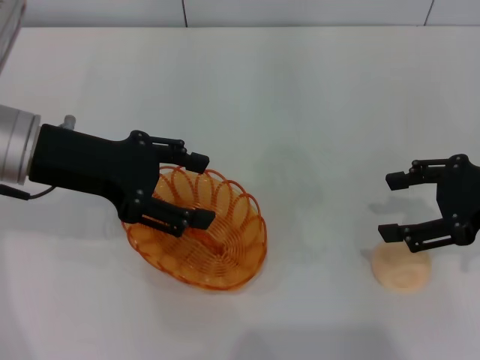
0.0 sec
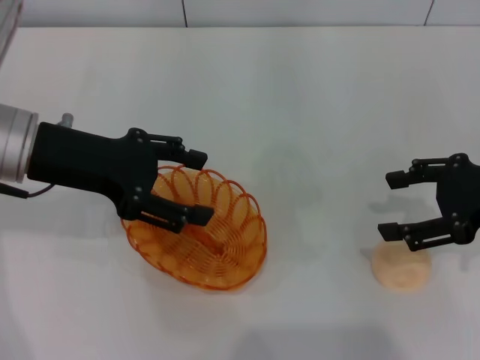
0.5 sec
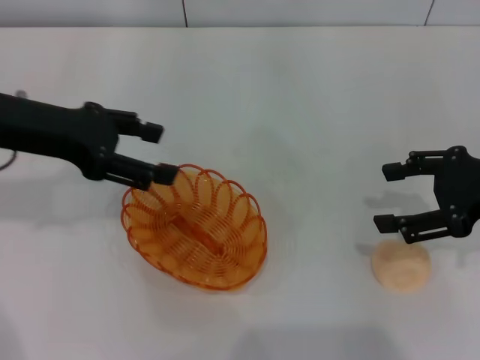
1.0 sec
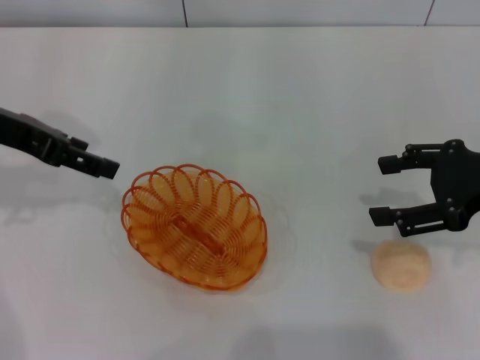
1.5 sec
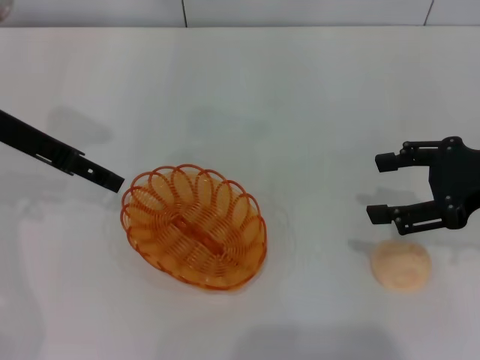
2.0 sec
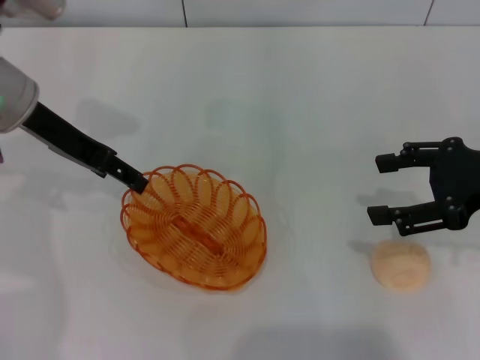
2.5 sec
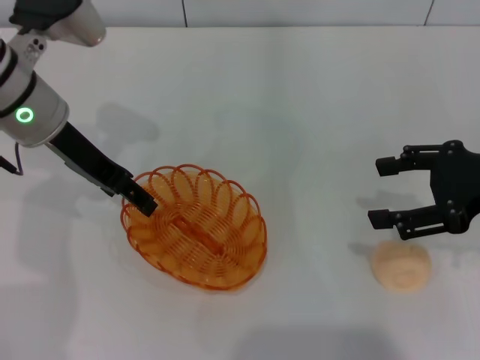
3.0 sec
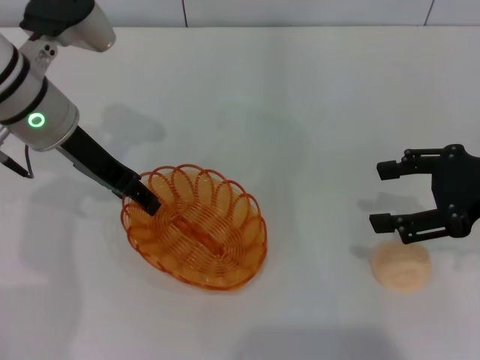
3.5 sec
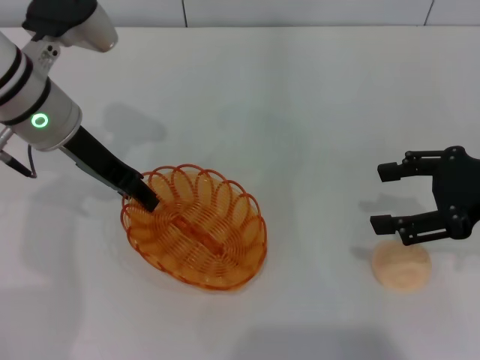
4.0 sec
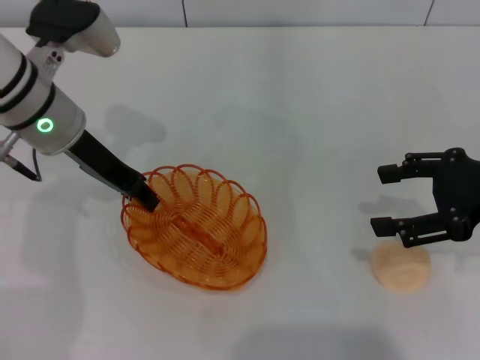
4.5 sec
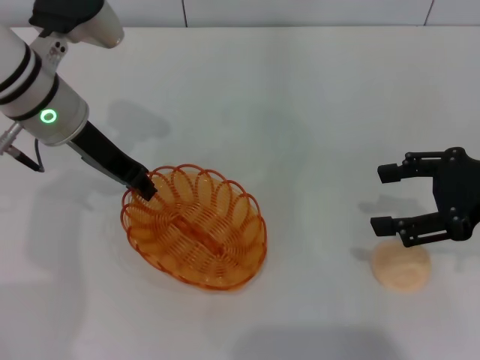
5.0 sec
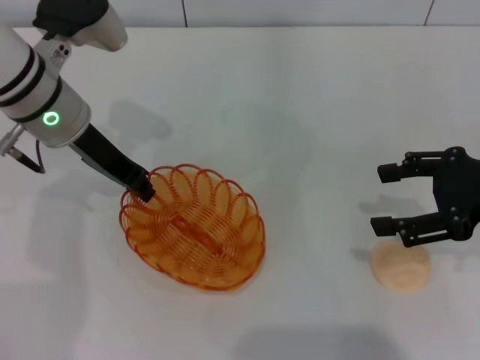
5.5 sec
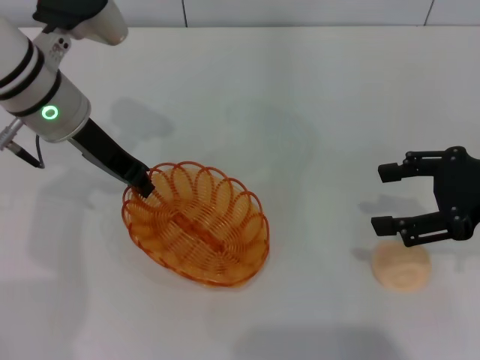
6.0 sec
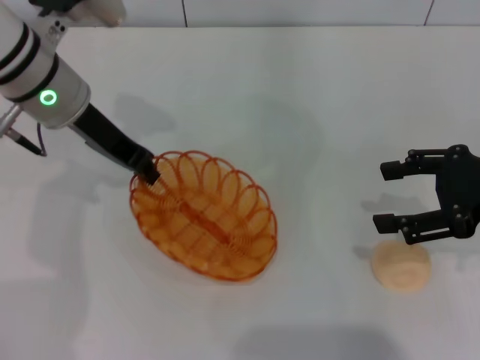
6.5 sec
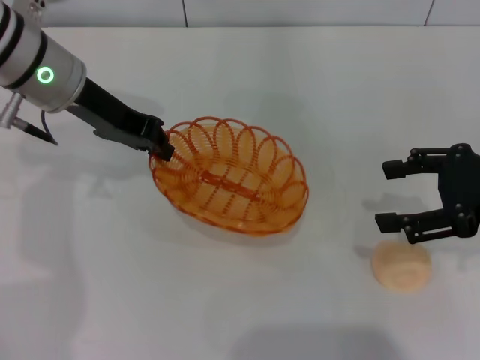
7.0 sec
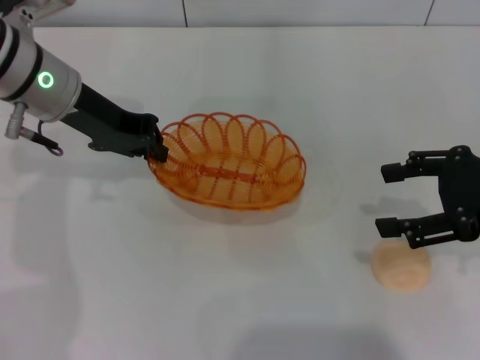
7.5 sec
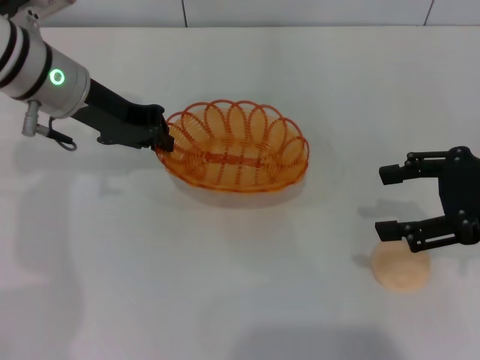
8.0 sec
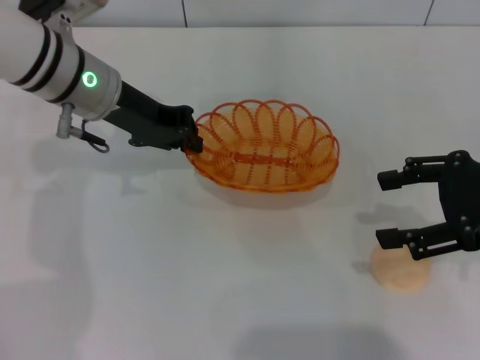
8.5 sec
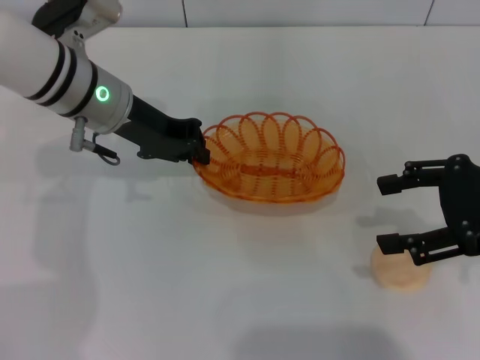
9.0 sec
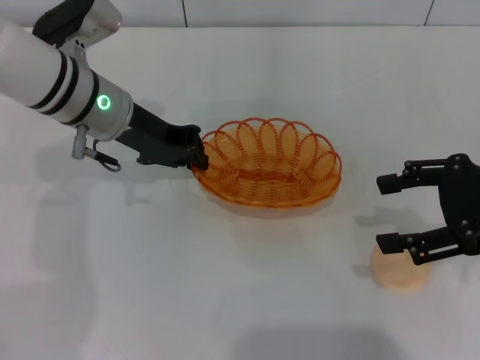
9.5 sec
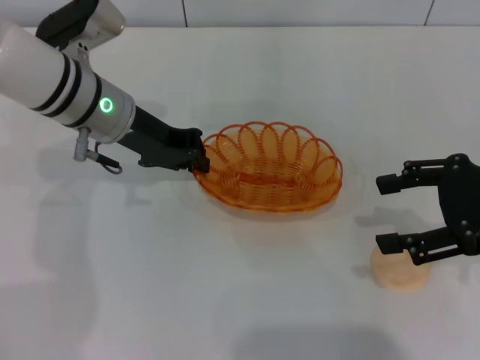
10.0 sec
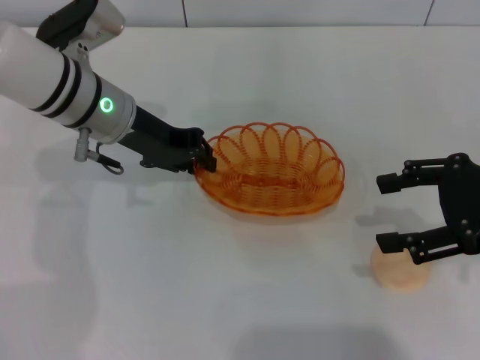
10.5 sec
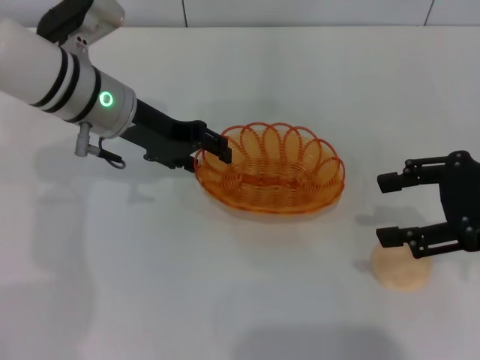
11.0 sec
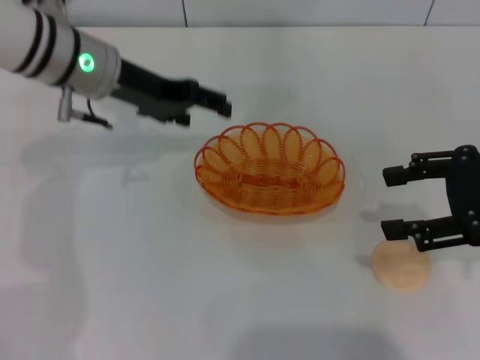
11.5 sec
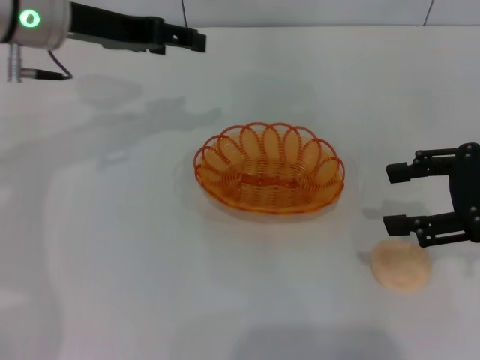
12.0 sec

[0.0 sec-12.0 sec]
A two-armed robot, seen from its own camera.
Step, 0.0 sec to 6.5 sec: Pick up the basket with the left gripper.
Step, 7.0 sec to 11.5 sec: Place the basket in the center of view with the left gripper.
0.0 sec to 2.0 sec: The left gripper ends up about 5 cm from where it was.
2.0 sec to 4.0 sec: The left gripper travels to the right by roughly 5 cm, and closes its fingers.
4.0 sec to 6.0 sec: The left gripper closes.
8.0 sec to 10.0 sec: The grippers make only small movements.
10.0 sec to 12.0 sec: The left gripper moves upward, some 10 cm, and opens its fingers.

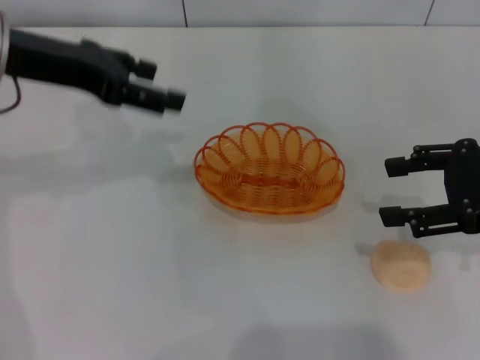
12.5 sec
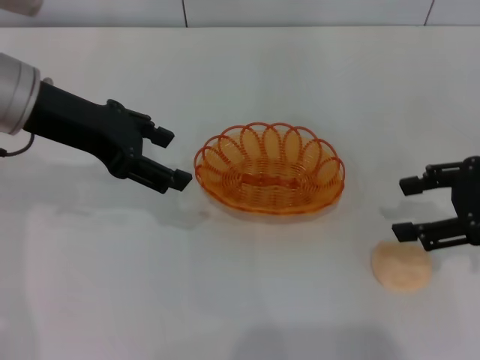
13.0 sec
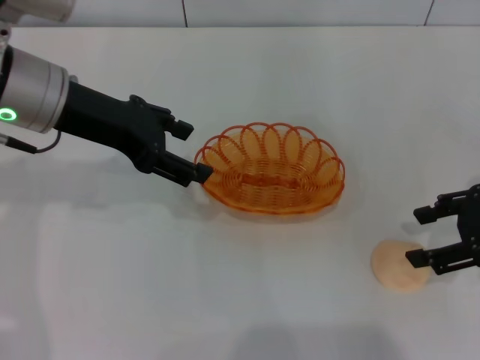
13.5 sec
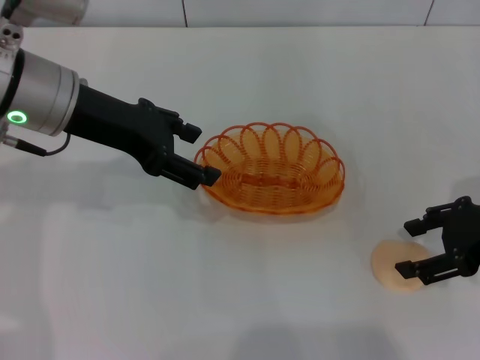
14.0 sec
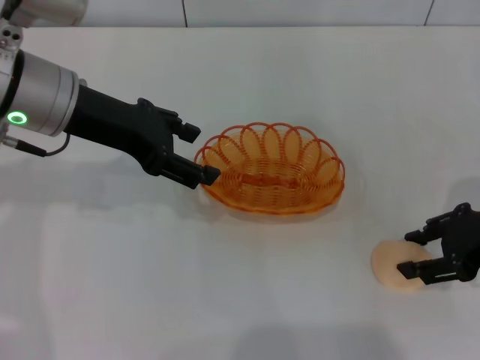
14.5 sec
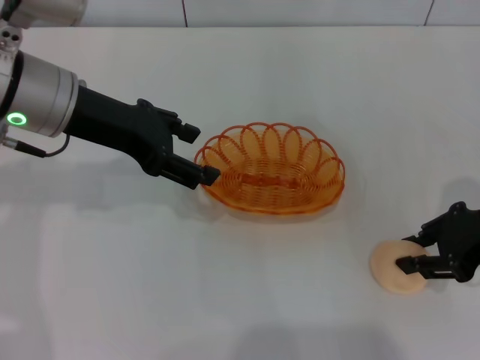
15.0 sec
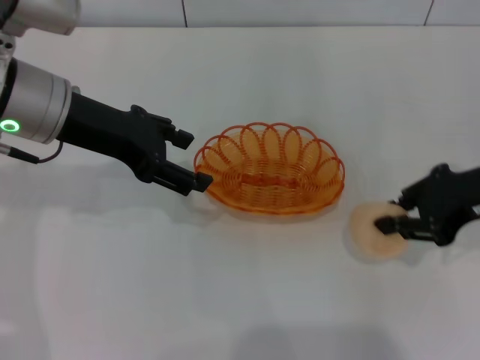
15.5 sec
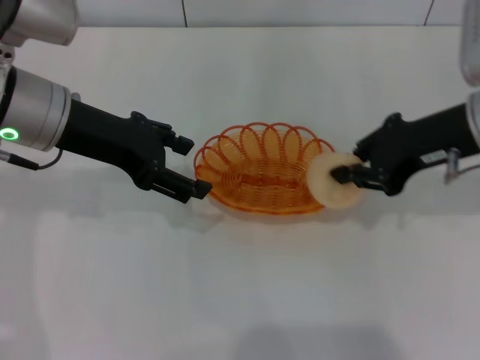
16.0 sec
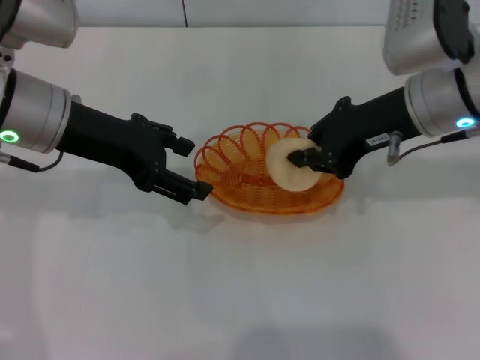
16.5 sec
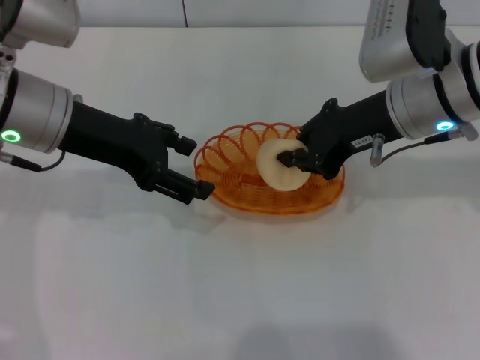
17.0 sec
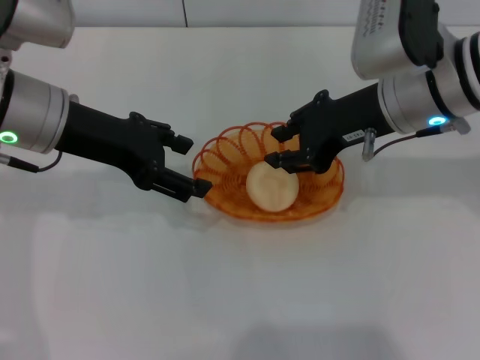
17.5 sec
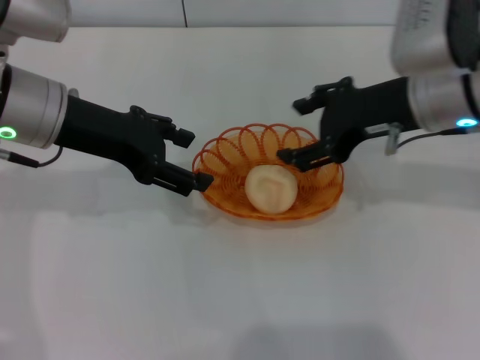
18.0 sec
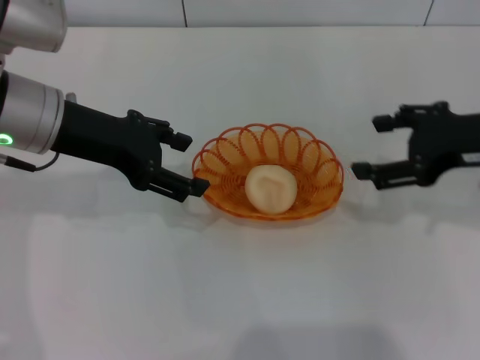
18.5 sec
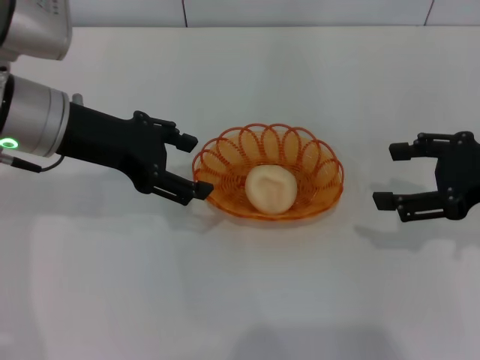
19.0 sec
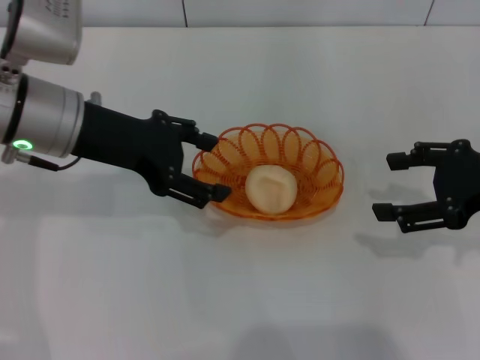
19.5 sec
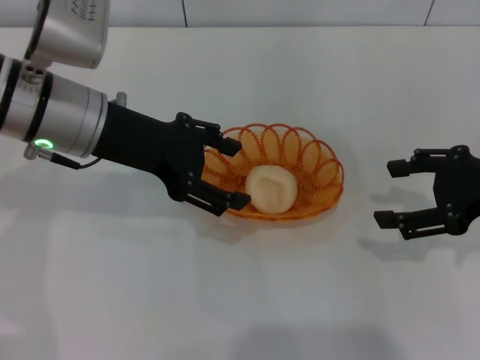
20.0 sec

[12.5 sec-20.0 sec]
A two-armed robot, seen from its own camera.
Step, 12.5 sec to 15.5 sec: Pick up the egg yolk pastry with the right gripper.
Step, 16.0 sec to 17.5 sec: Place the egg yolk pastry into the basket with the right gripper.
12.5 sec to 14.5 sec: The right gripper is displaced downward by some 5 cm. Meanwhile the left gripper changes place by some 5 cm.
14.5 sec to 16.5 sec: The right gripper is displaced to the left, upward and forward by some 15 cm, and closes its fingers.
16.5 sec to 18.0 sec: The right gripper opens.
18.0 sec to 20.0 sec: The right gripper moves to the right and backward, some 15 cm.

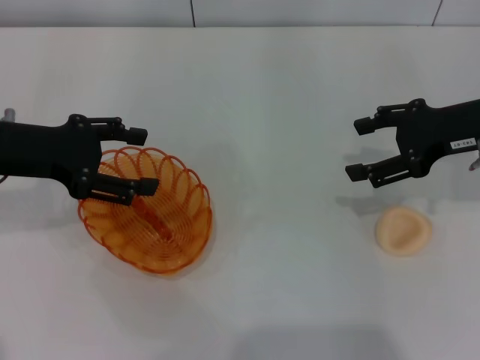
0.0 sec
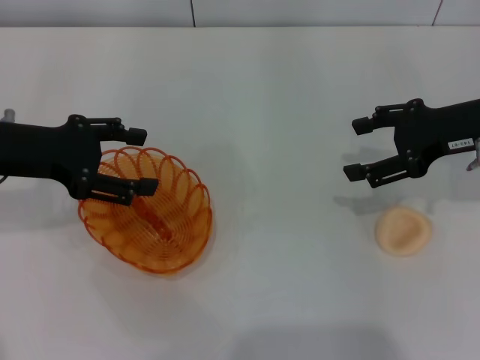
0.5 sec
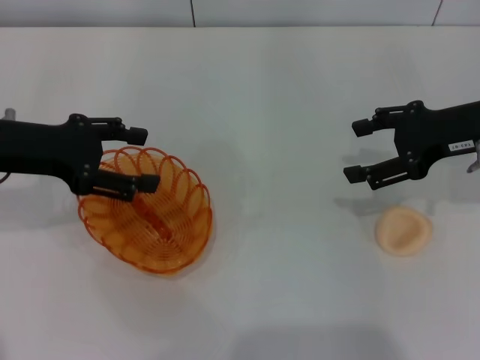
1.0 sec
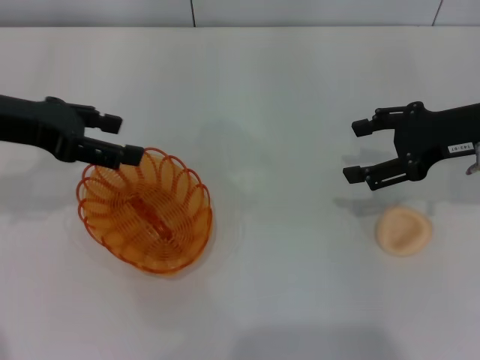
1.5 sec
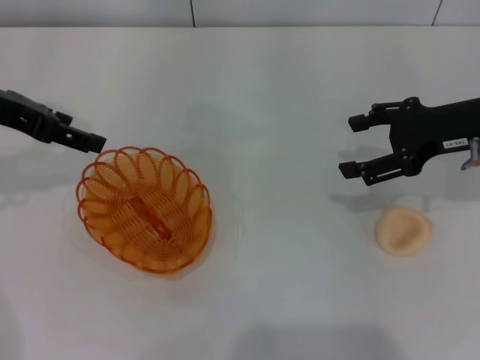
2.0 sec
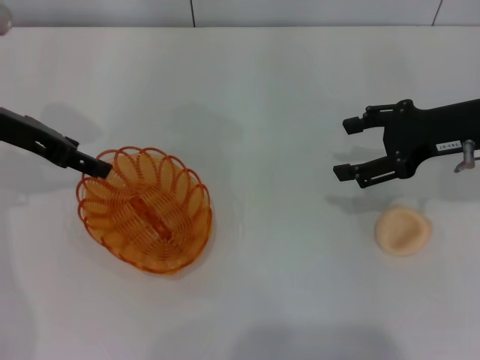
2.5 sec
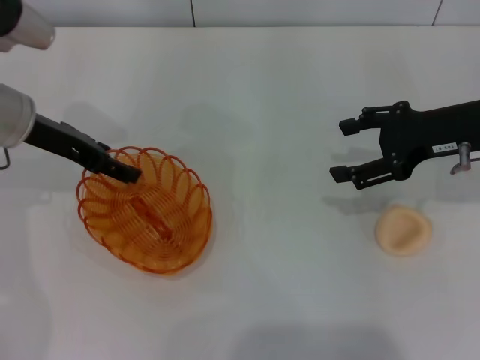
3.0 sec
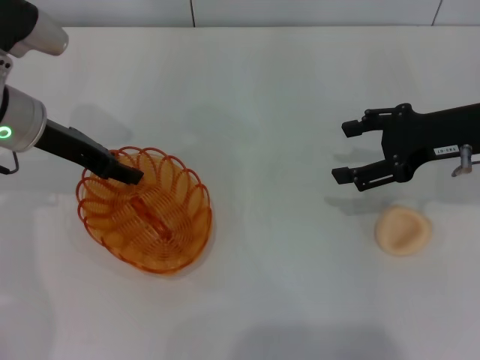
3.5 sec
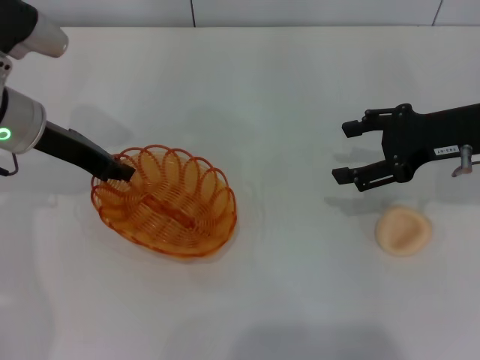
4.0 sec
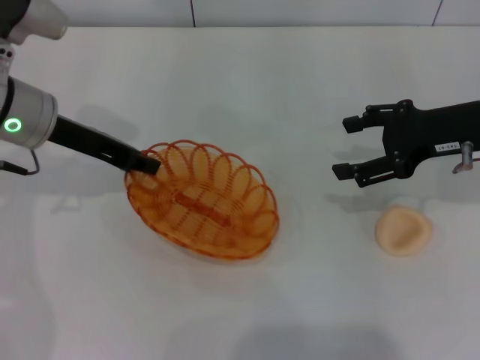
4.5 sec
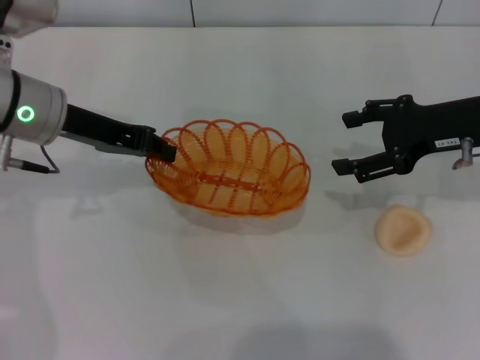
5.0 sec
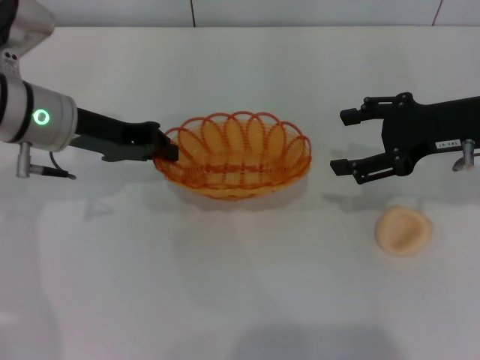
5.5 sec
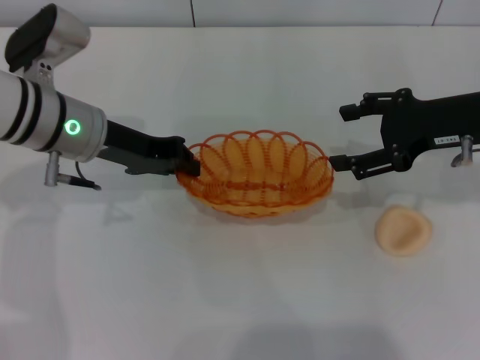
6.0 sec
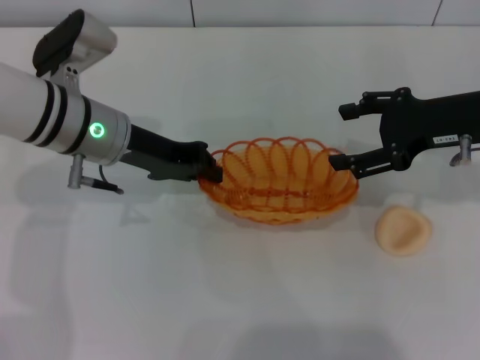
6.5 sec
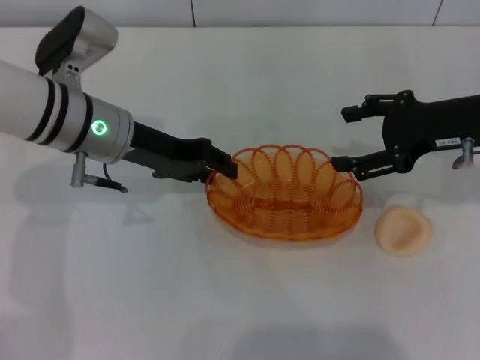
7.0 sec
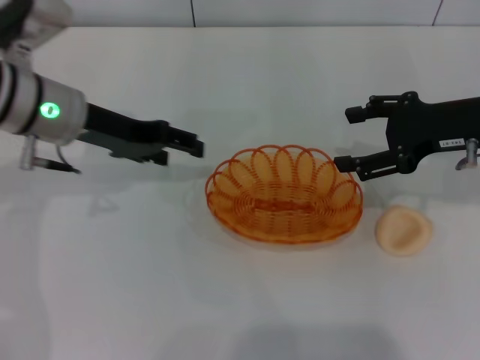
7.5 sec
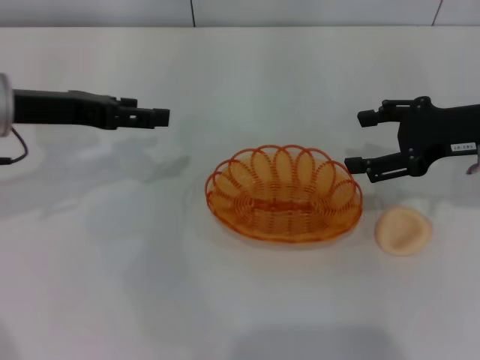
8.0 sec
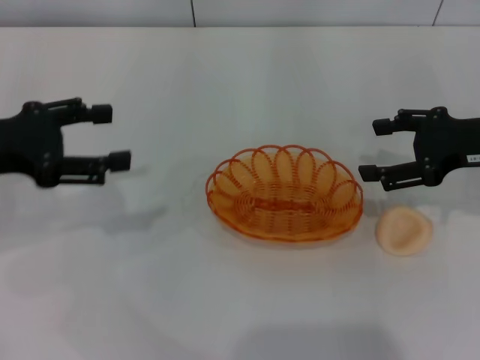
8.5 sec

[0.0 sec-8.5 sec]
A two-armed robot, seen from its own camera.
Step, 0.0 sec to 5.0 sec: Pick up the basket with the left gripper.
Step, 5.5 sec to 7.5 sec: Place the basket in the center of view with the left gripper.
0.0 sec to 2.0 sec: The left gripper heads upward, covering about 5 cm.
2.0 sec to 4.0 sec: The left gripper goes about 5 cm downward, and closes.
4.0 sec to 6.5 sec: The left gripper travels to the right by some 5 cm.
6.5 sec to 8.5 sec: The left gripper goes roughly 15 cm to the left and backward, and opens its fingers.
